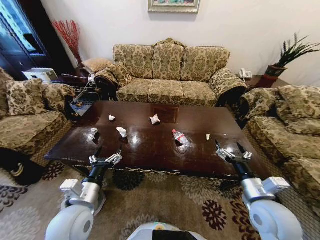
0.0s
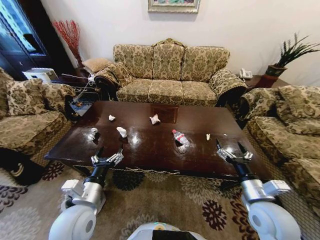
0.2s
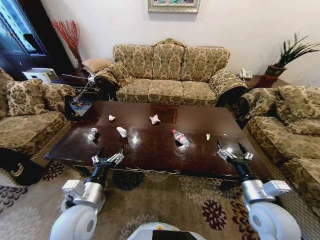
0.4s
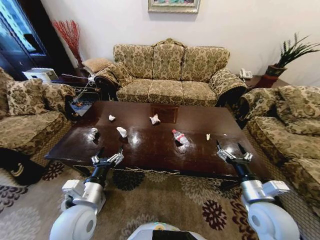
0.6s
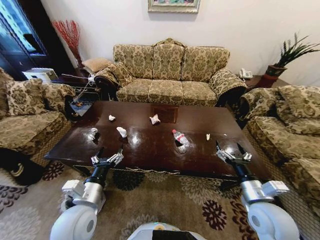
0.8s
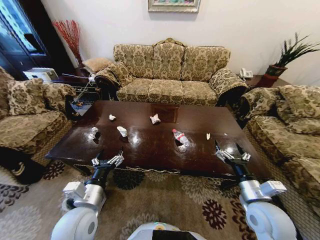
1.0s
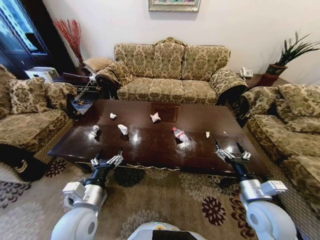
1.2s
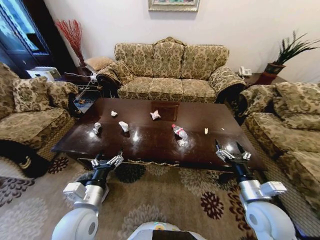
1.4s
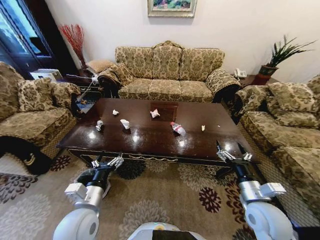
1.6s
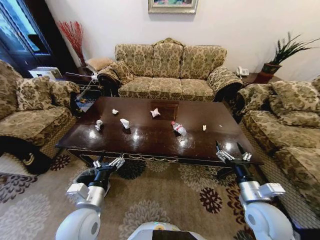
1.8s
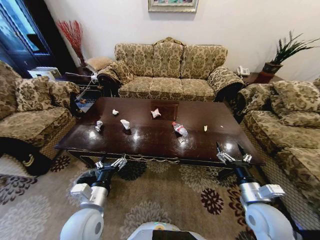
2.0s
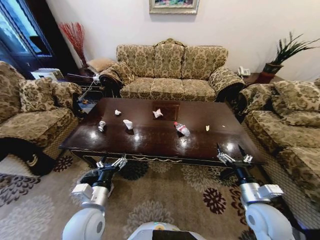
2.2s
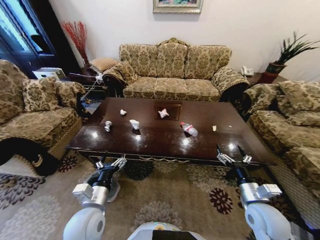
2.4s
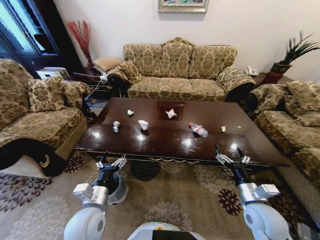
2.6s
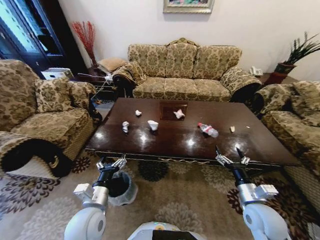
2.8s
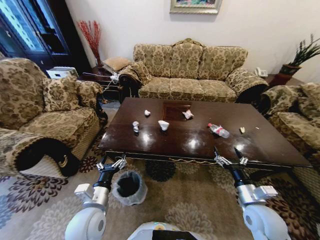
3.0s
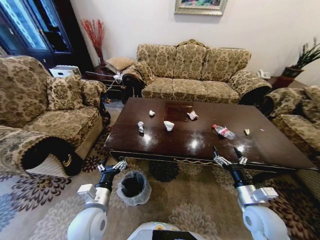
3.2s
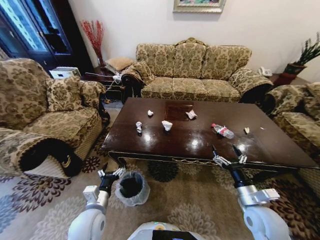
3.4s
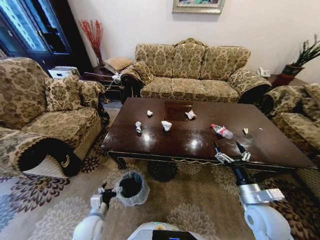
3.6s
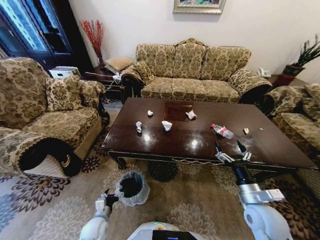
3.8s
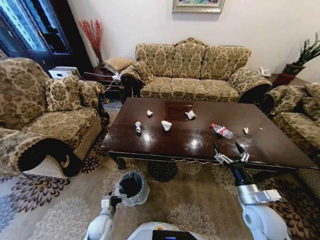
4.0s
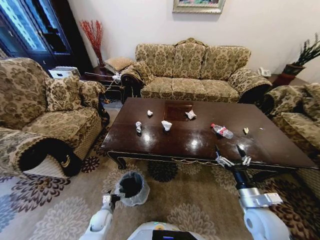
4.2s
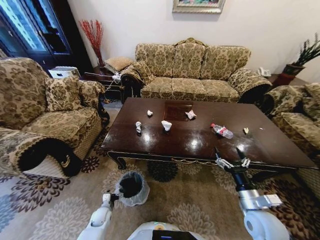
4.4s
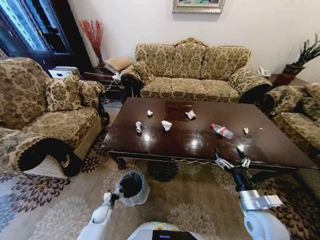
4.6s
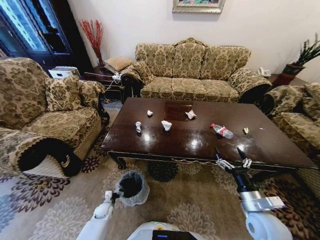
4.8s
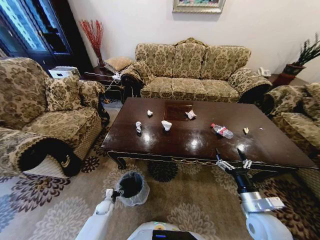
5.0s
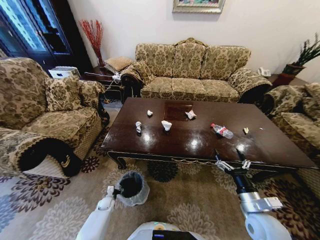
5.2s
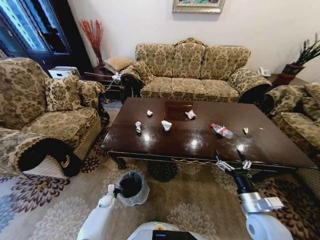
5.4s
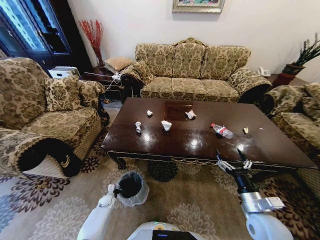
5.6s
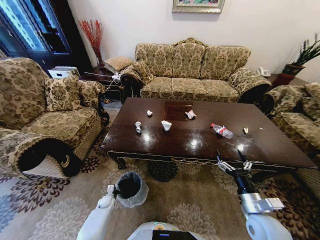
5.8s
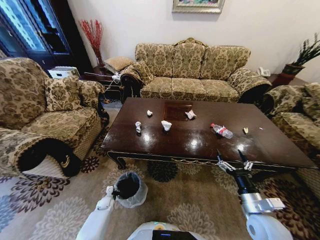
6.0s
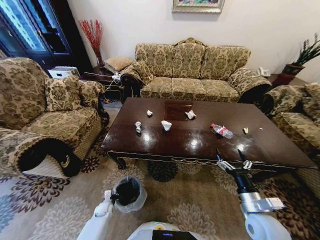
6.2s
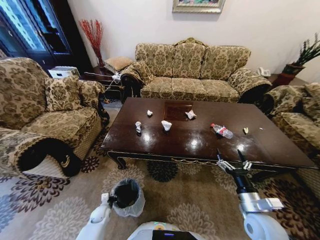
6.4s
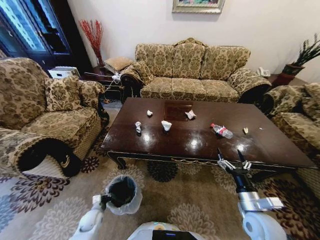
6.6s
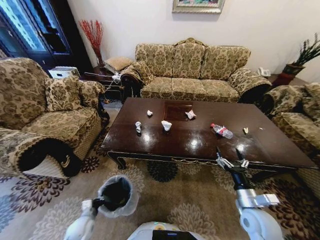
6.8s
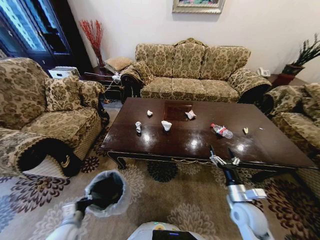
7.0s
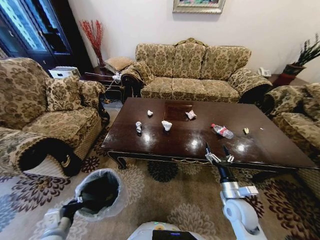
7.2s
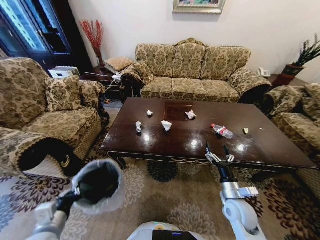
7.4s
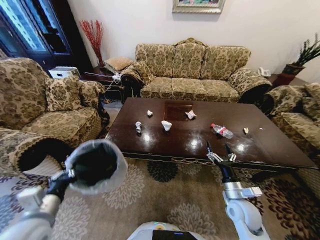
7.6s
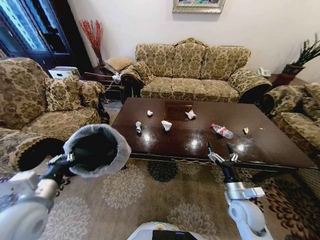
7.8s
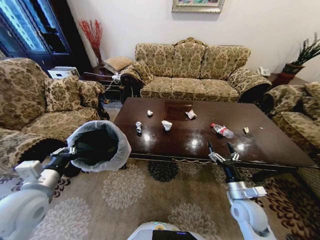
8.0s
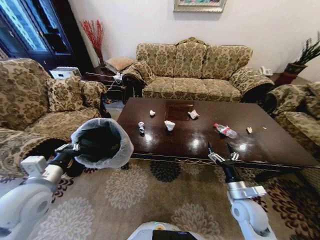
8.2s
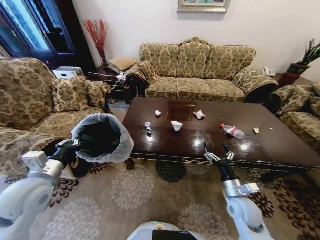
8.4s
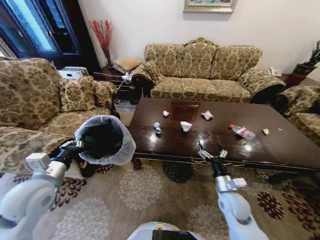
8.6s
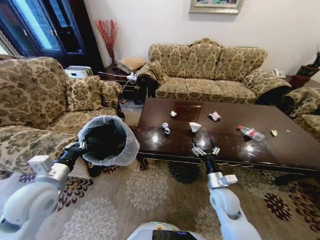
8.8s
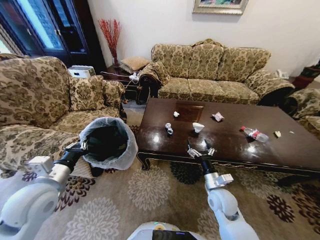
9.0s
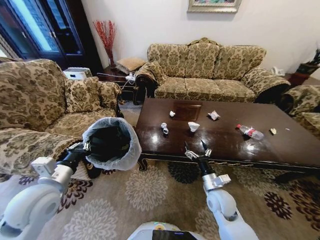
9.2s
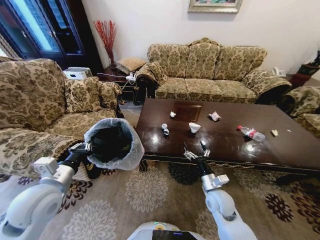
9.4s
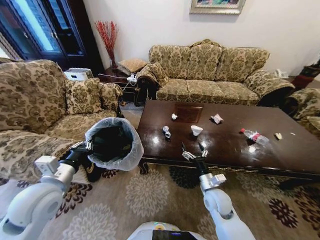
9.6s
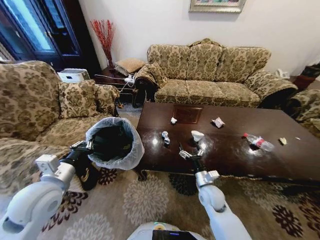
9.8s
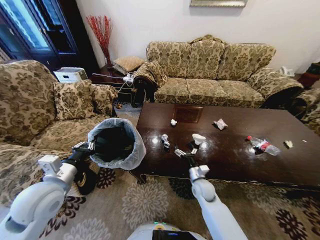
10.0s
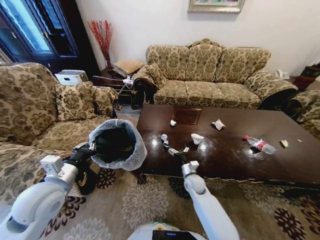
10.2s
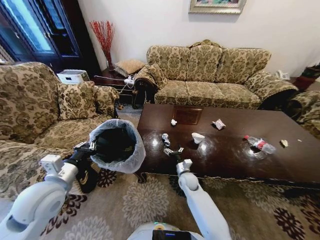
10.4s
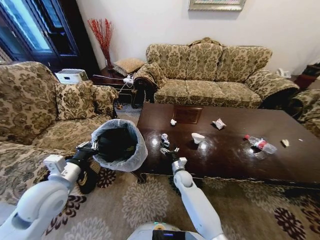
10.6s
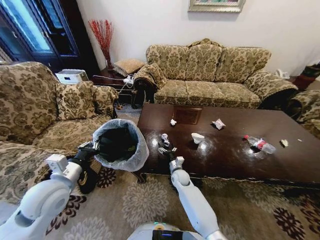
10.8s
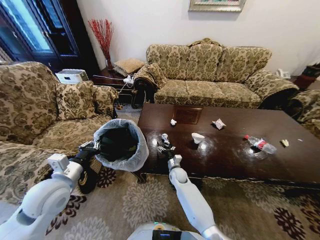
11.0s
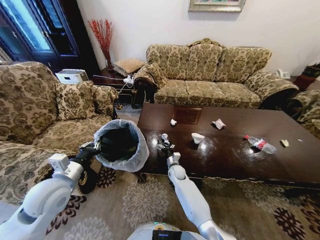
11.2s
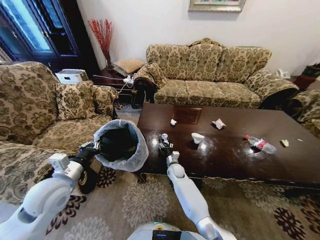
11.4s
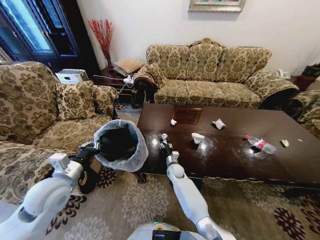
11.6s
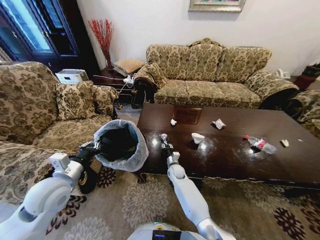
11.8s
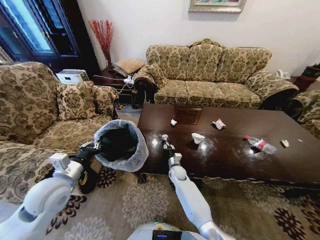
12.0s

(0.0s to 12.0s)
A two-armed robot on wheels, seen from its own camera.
Task of the whole recording: Move to the front of the table and place the trash on the table into the trash bin.
3.0s - 4.4s: The left gripper goes some 30 cm downward.
4.4s - 6.0s: The left gripper moves forward and downward, roughly 10 cm, and closes up.
6.0s - 7.6s: The right gripper shifts roughly 5 cm forward; the left gripper is displaced upward by approximately 40 cm.
7.6s - 9.0s: The left gripper shifts about 5 cm forward, while the right gripper is displaced to the left by about 5 cm.
9.0s - 10.4s: The right gripper travels forward, downward and to the left by some 20 cm.
10.4s - 12.0s: The right gripper moves about 5 cm, and closes.

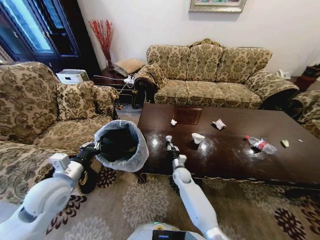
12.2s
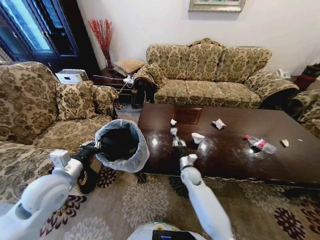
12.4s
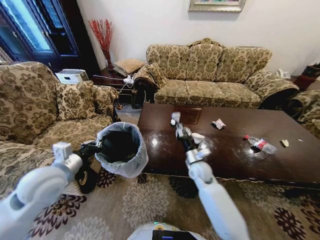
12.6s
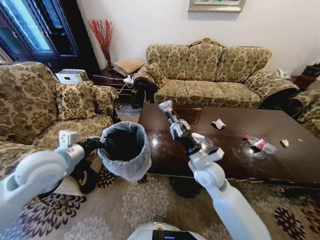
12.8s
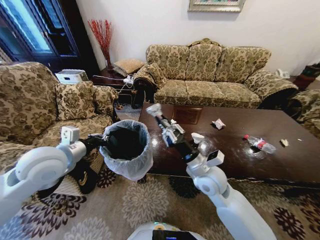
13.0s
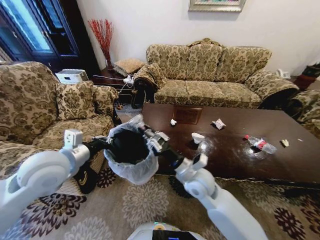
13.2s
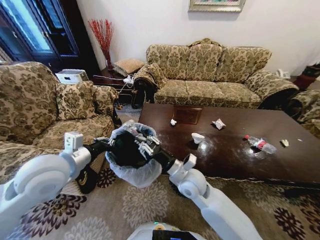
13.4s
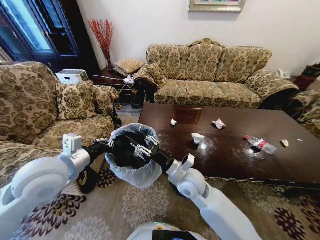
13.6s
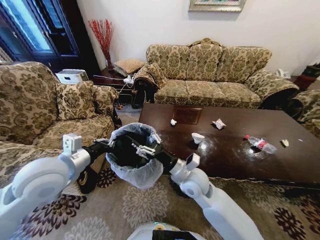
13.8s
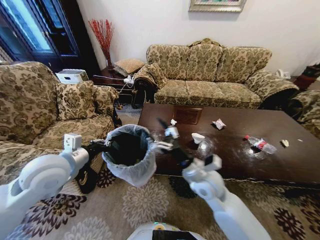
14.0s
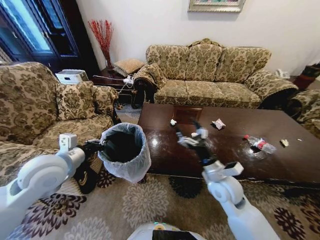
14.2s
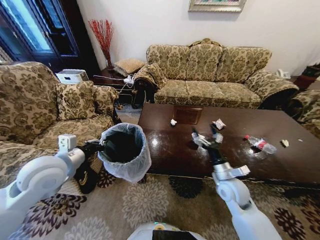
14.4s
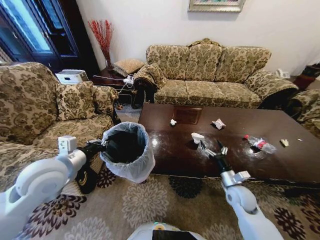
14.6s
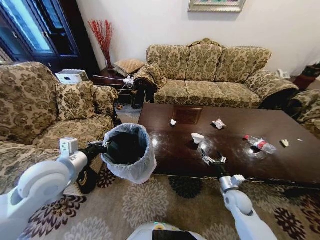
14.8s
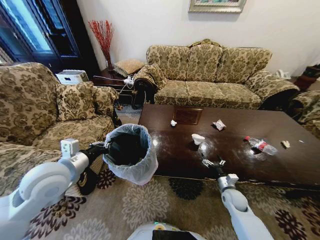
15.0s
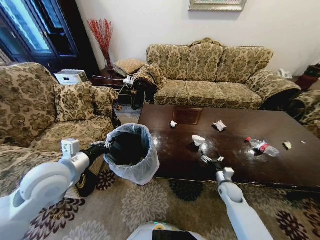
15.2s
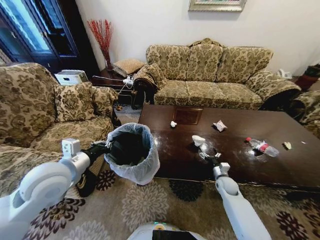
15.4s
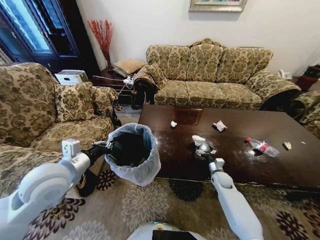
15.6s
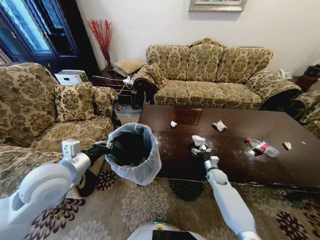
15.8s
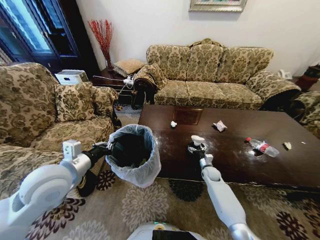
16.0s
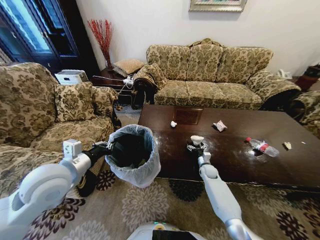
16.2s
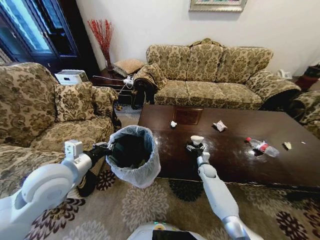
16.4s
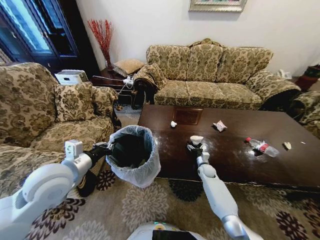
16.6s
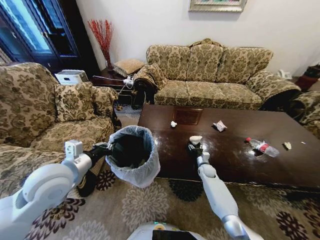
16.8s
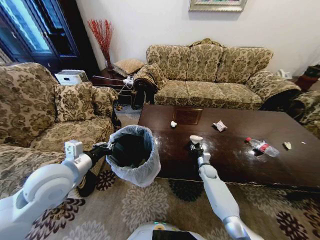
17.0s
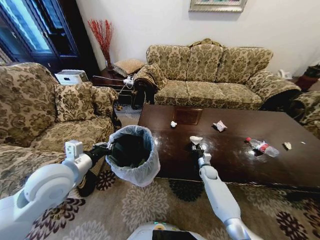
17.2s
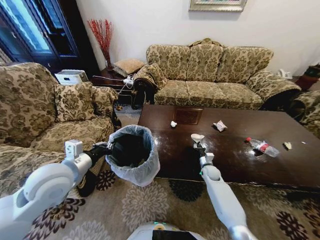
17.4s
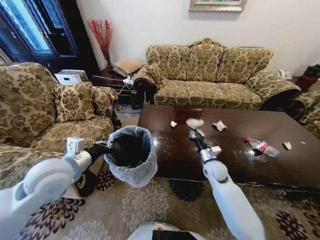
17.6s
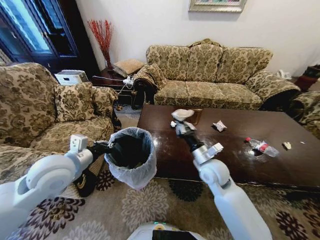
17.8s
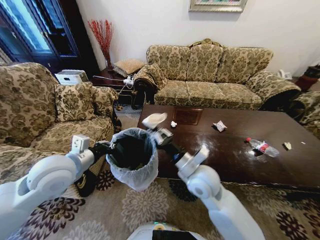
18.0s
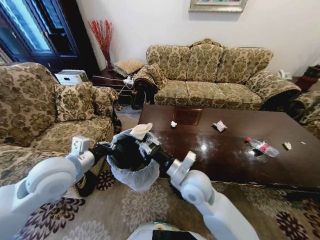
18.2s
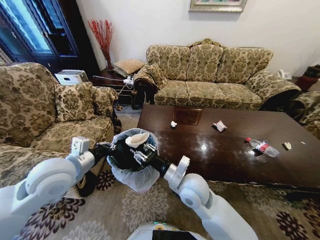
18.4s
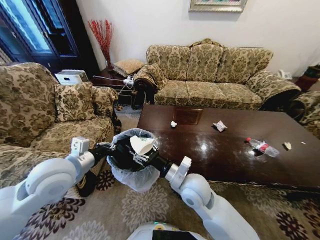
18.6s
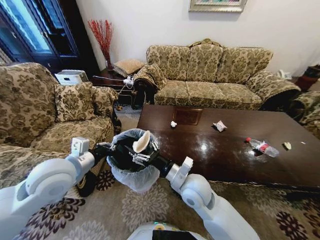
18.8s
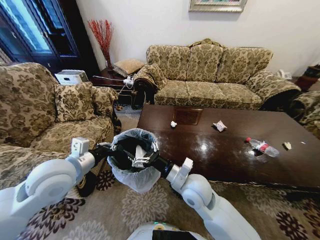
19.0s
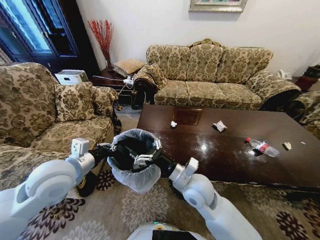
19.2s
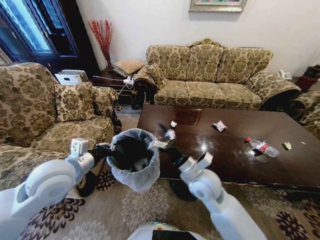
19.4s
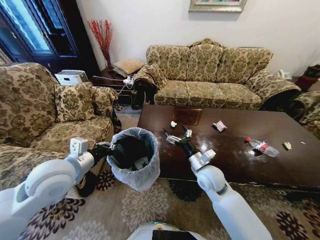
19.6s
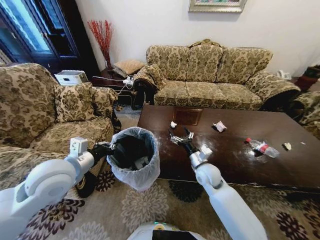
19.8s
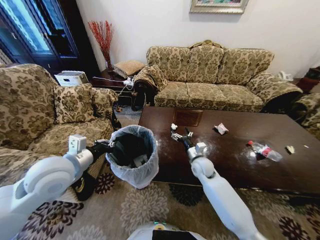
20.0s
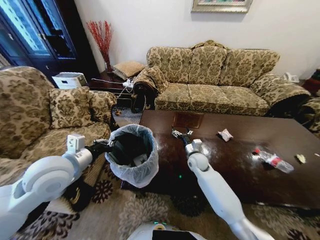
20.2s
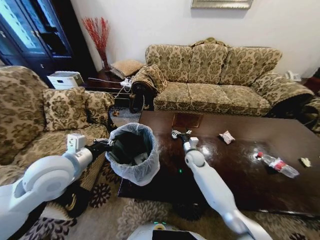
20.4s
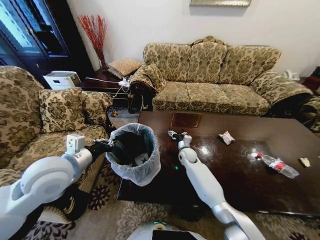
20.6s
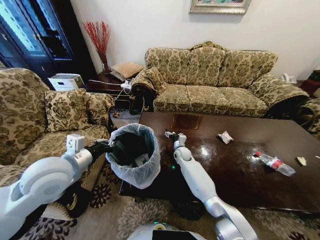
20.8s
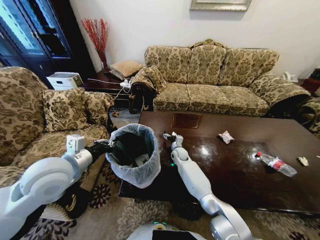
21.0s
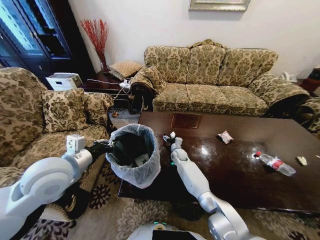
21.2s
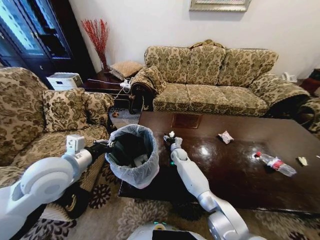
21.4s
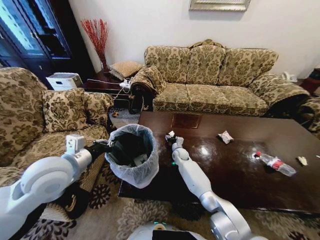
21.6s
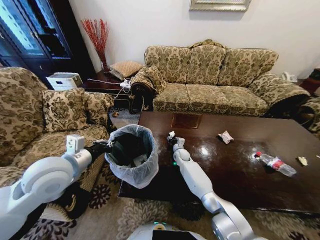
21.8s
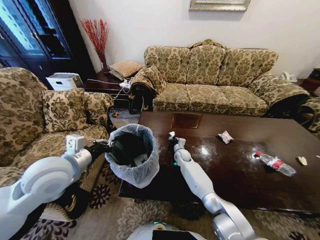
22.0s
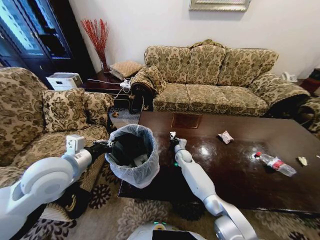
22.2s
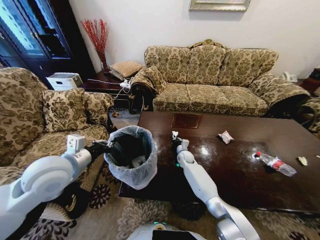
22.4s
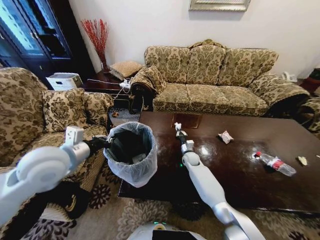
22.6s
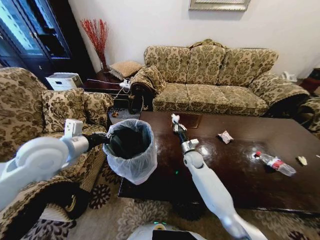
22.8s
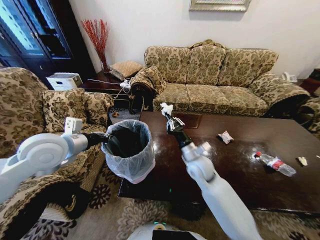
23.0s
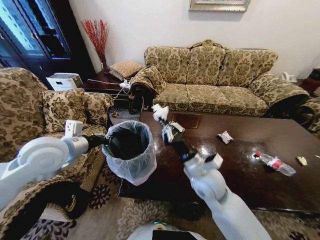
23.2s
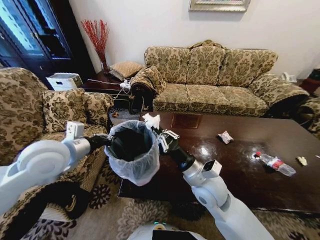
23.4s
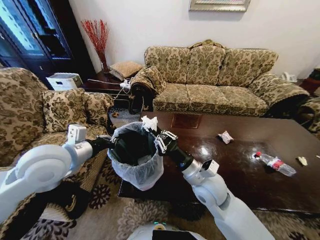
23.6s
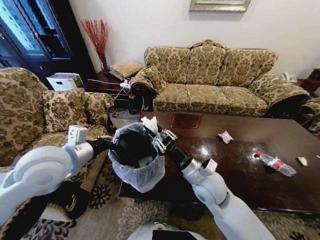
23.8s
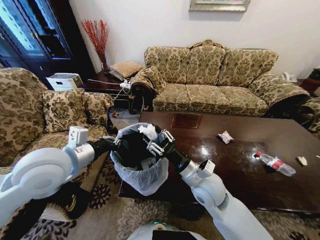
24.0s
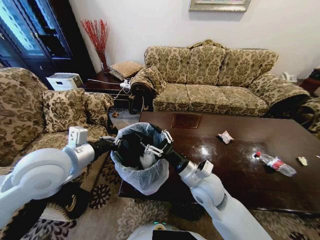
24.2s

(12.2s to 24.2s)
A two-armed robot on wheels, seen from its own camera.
Task of the whole recording: Move to the front of the table and place the trash on the table into the trash bin.
12.2s - 13.8s: The left gripper moves upward, approximately 10 cm; the right gripper moves upward and backward, roughly 25 cm, and opens its fingers.
13.8s - 15.2s: The right gripper heads to the right and downward, covering some 30 cm.
15.2s - 16.6s: The right gripper travels forward and to the left by some 15 cm.
16.6s - 18.2s: The right gripper heads upward, backward and to the left, covering some 35 cm, and closes.
18.2s - 19.8s: The right gripper travels to the right, downward and forward by approximately 15 cm, and opens.
19.8s - 21.2s: The right gripper goes roughly 25 cm forward, downward and to the left.
21.2s - 22.6s: The right gripper goes approximately 5 cm to the right, and closes up.
22.6s - 24.2s: The right gripper goes approximately 30 cm backward and upward, and opens its fingers.
